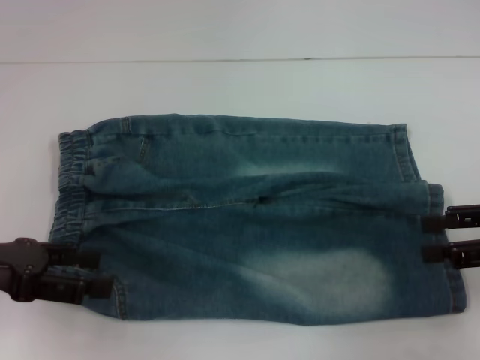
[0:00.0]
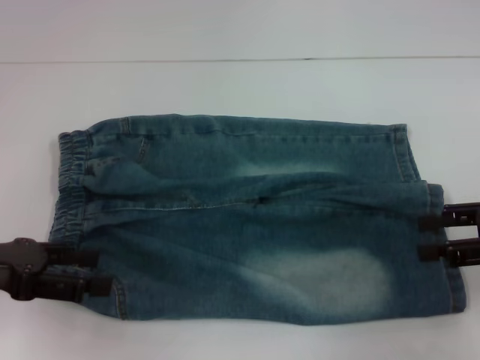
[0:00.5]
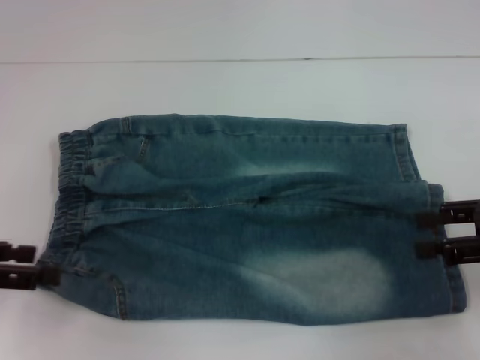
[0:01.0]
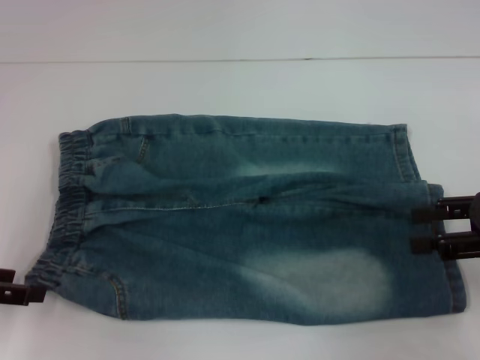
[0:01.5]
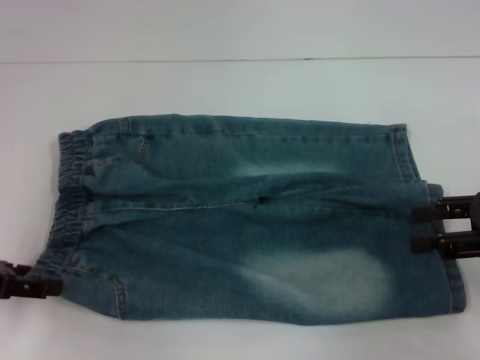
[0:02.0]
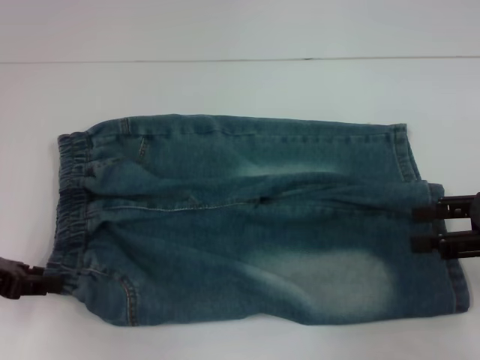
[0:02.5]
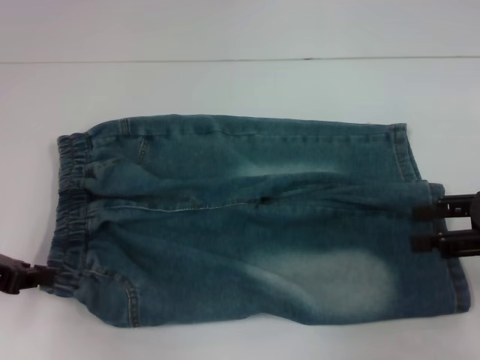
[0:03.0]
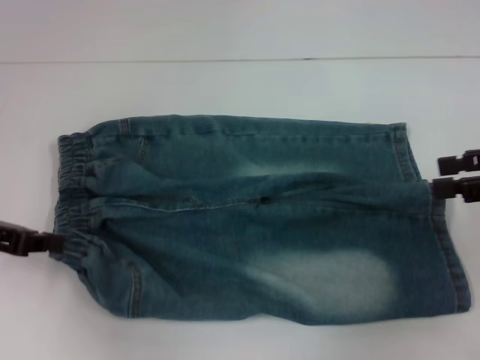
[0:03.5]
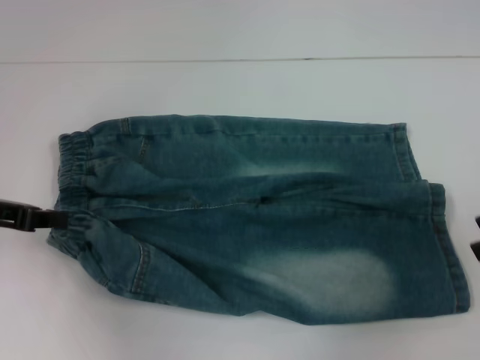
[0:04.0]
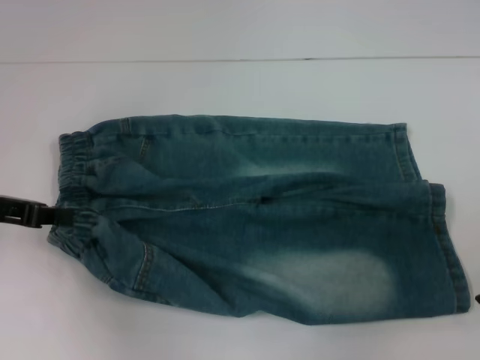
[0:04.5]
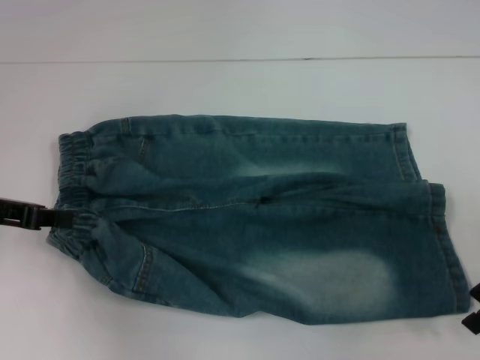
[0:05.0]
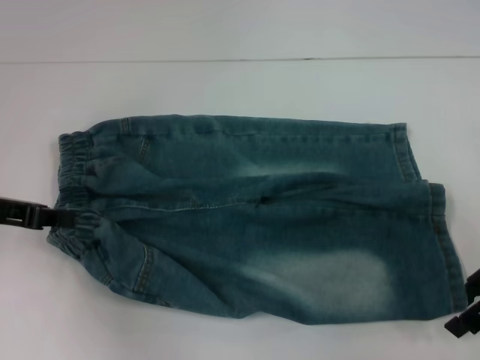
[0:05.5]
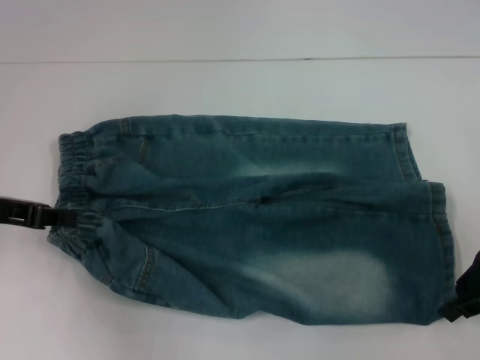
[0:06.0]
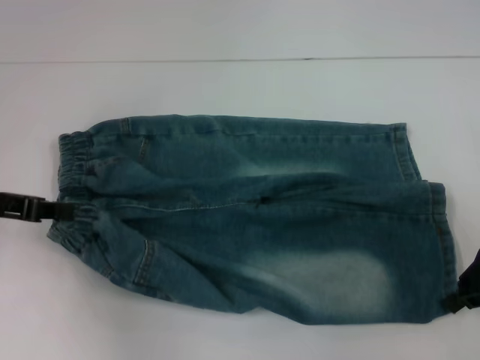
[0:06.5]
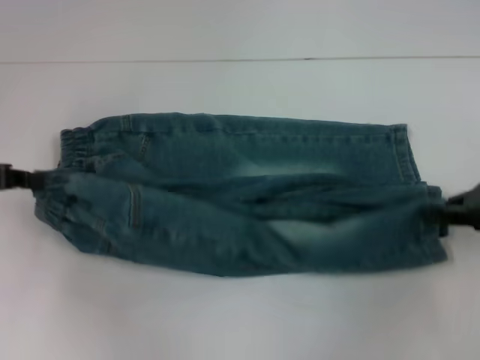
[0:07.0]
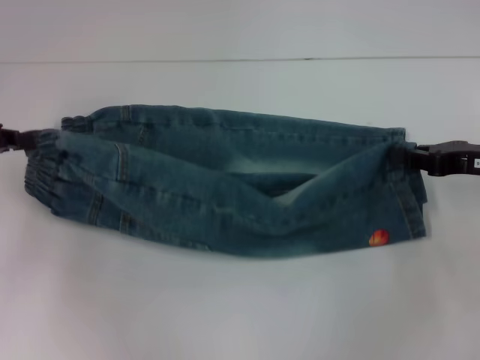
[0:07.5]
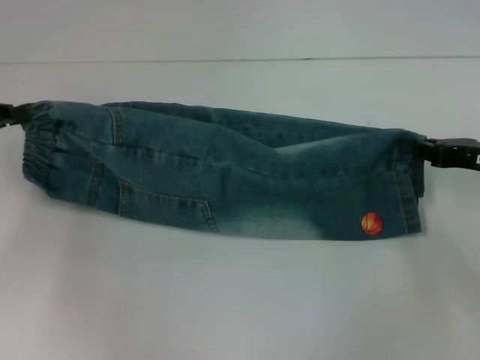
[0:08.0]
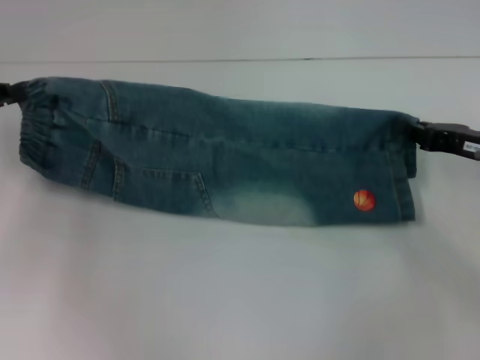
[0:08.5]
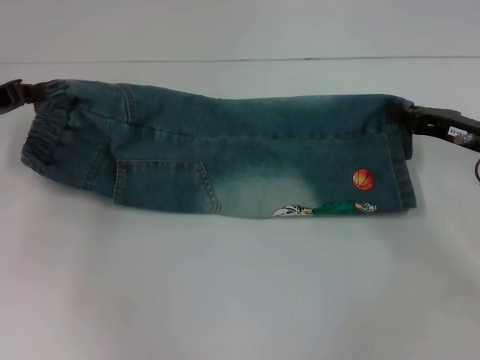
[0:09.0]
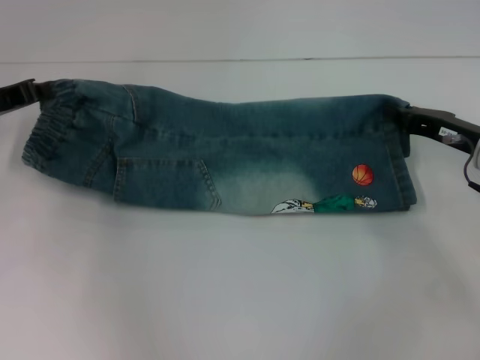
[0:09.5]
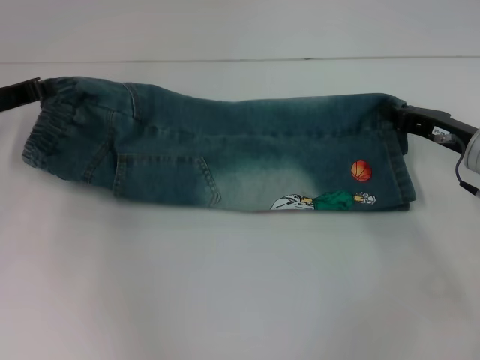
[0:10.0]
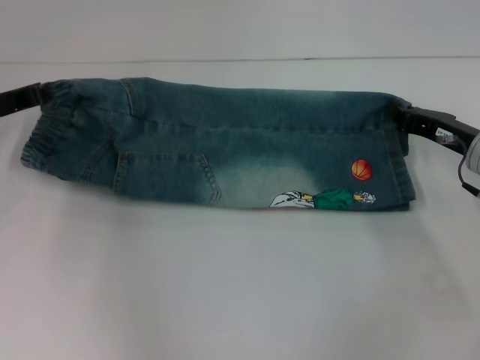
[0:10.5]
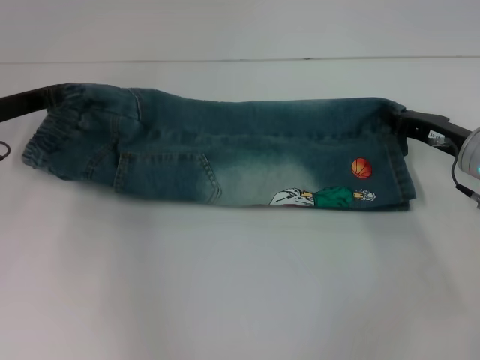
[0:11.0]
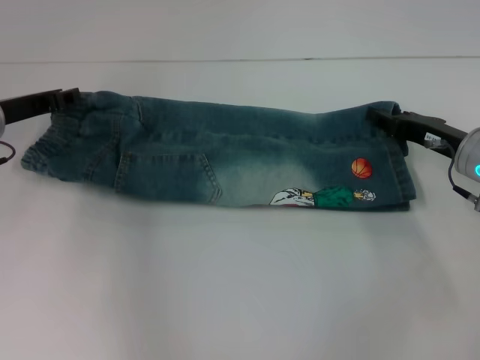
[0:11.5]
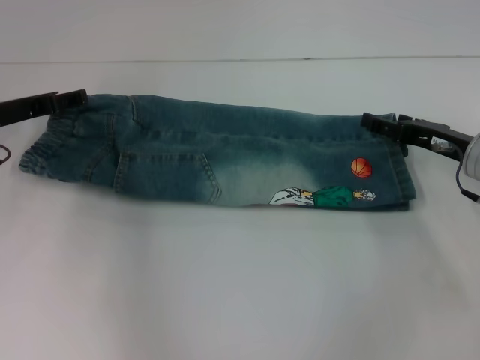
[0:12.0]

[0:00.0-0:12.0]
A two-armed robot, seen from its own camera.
Step, 0:00.0 to 0:02.5: Hold the lower left waistband with your left hand.
Step, 0:03.0 to 0:05.5: Grab the lower right pant leg with your right hand.
0:02.0 to 0:04.0: The right gripper ends up some 5 cm from where it was. The left gripper moves about 5 cm, and closes.
0:04.0 to 0:06.0: The right gripper heads to the left and downward, covering some 10 cm.
0:06.0 to 0:08.0: The right gripper closes. Meanwhile the left gripper ends up about 5 cm from where it was.
0:08.0 to 0:10.0: The right gripper shifts by about 5 cm, while the left gripper changes place by approximately 5 cm.
0:10.0 to 0:12.0: The left gripper opens up. The right gripper opens up.

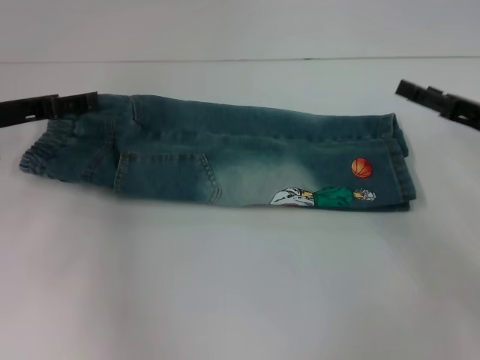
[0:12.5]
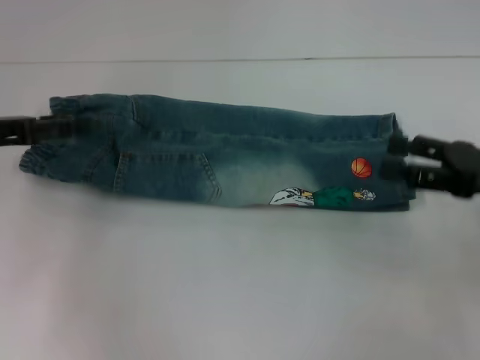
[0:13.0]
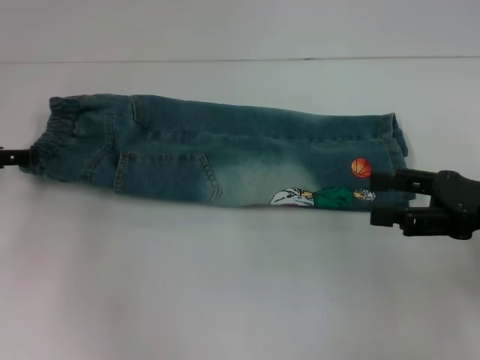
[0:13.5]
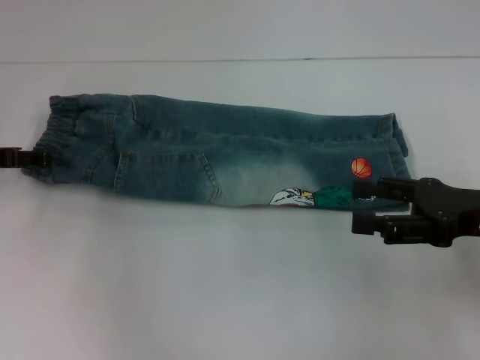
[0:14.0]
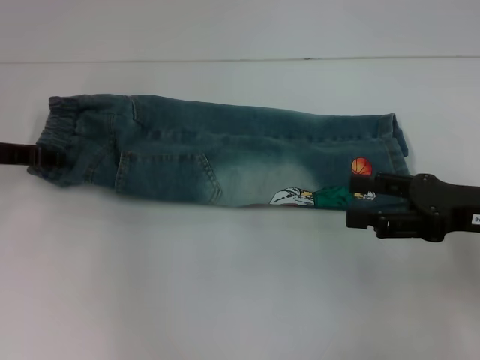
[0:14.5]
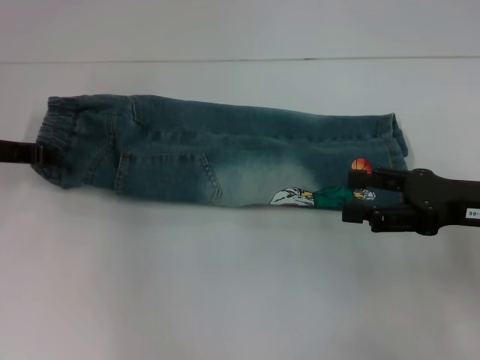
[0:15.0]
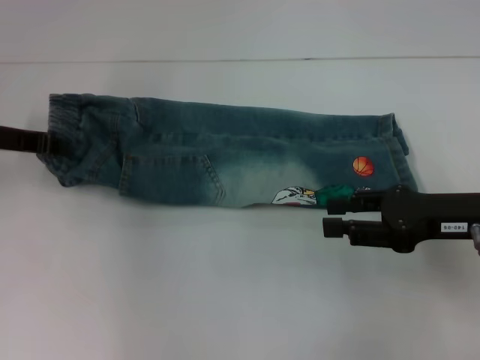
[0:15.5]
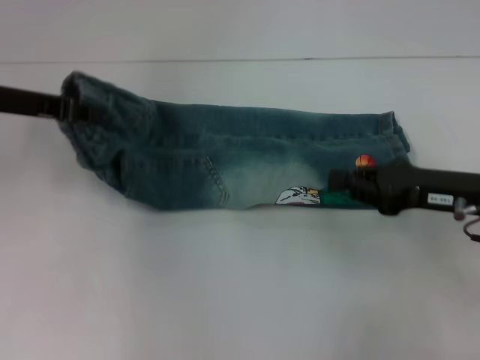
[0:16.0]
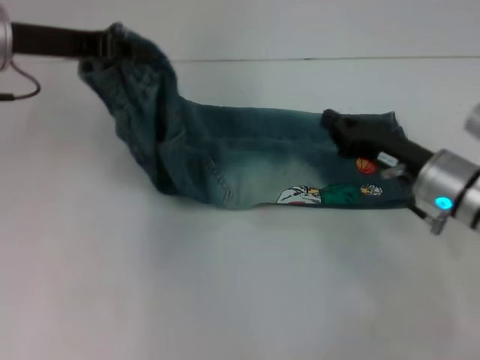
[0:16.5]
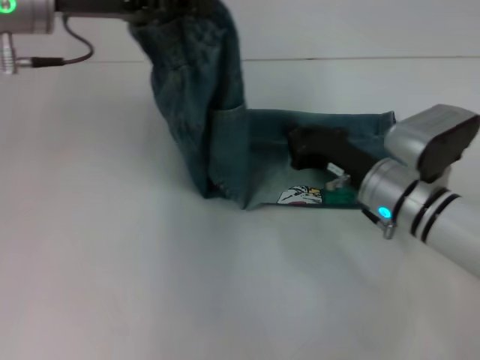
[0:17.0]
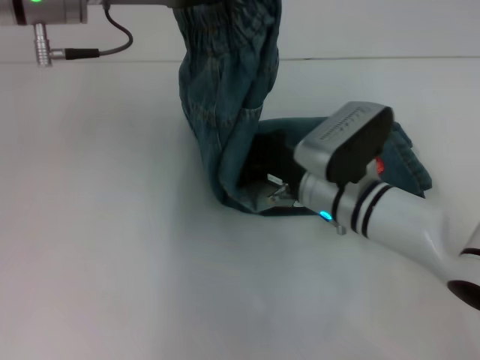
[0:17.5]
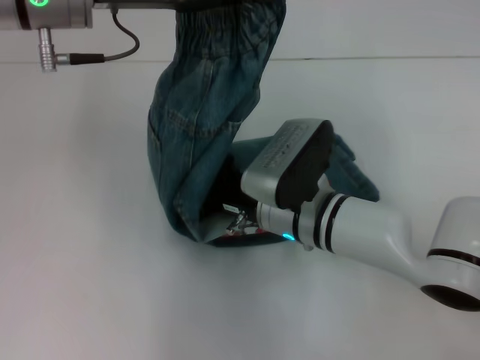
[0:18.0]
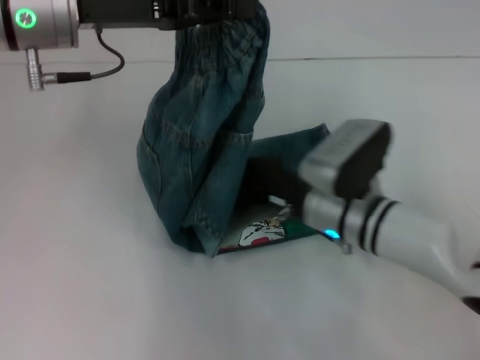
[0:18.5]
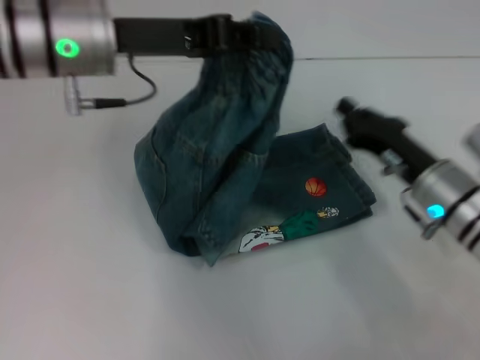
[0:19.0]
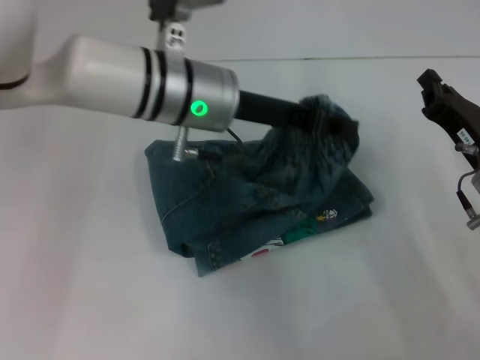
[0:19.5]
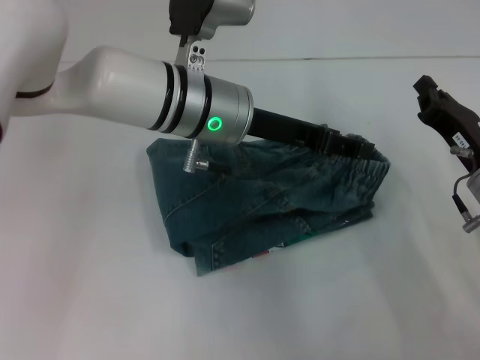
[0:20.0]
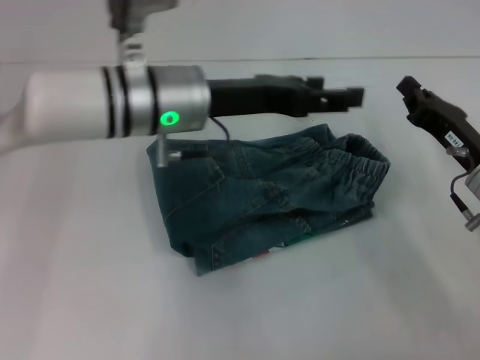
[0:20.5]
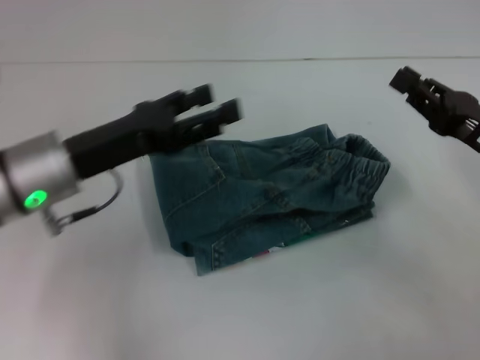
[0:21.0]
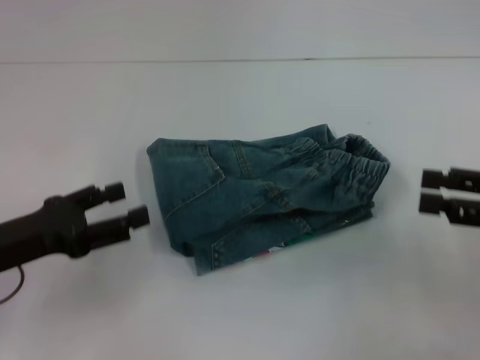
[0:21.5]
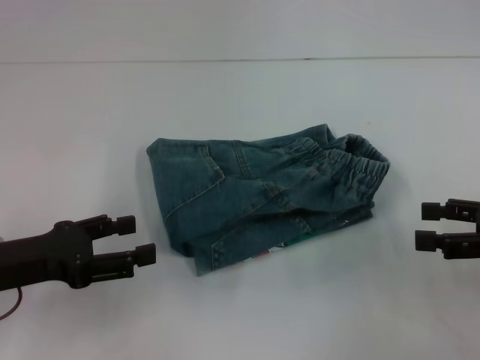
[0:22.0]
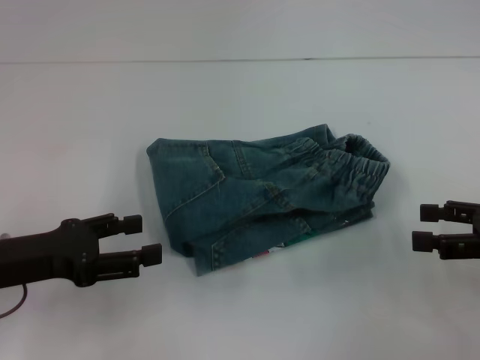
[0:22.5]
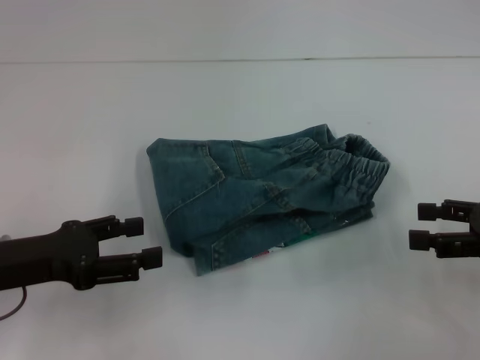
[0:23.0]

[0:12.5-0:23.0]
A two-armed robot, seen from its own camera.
Step, 0:12.5 to 0:14.5: Hold the waistband with your left hand.
Step, 0:15.0 to 0:18.0: Press the middle of the pants with your right hand.
Step, 0:19.0 to 0:20.0: Fold to the right with your left hand.
0:12.5 to 0:14.5: The right gripper moves backward, about 5 cm. The left gripper closes up.
0:14.5 to 0:16.5: The right gripper moves to the left, downward and forward, approximately 10 cm, and closes its fingers, while the left gripper is displaced upward and to the right by approximately 15 cm, and closes up.
0:16.5 to 0:19.0: The left gripper travels to the right by roughly 10 cm. Meanwhile the right gripper travels to the left and back again, approximately 15 cm each way.
0:19.0 to 0:21.0: The right gripper shifts roughly 10 cm to the right and upward. The left gripper goes roughly 10 cm downward and backward, travels to the right and back again, about 10 cm each way, and opens its fingers.
0:21.0 to 0:23.0: The left gripper heads to the left and backward, covering about 10 cm; the right gripper heads to the right, covering roughly 5 cm, and opens its fingers.
